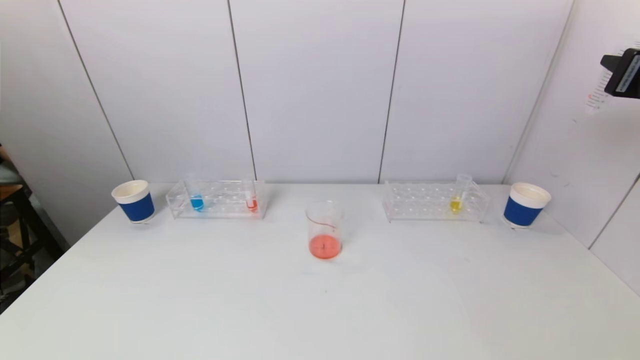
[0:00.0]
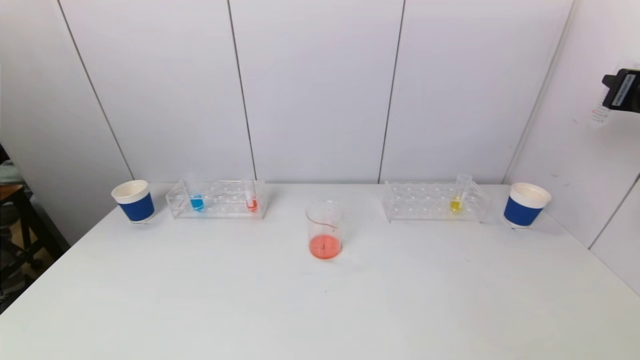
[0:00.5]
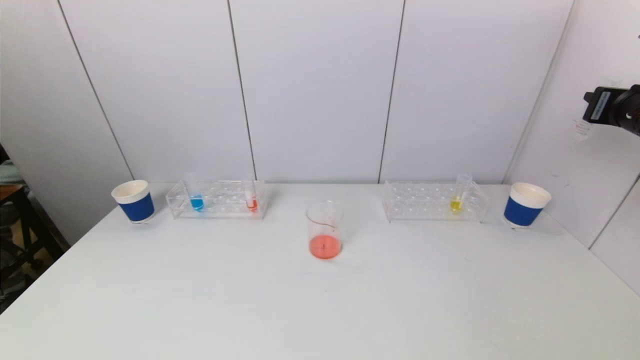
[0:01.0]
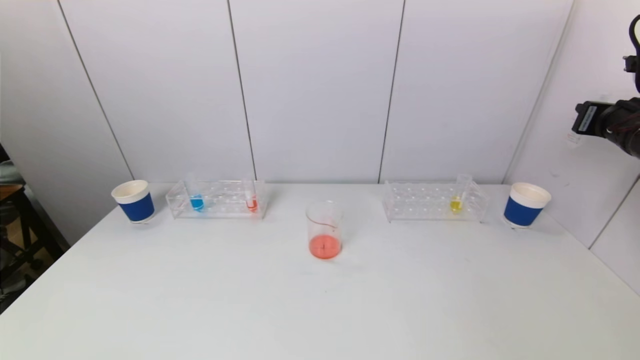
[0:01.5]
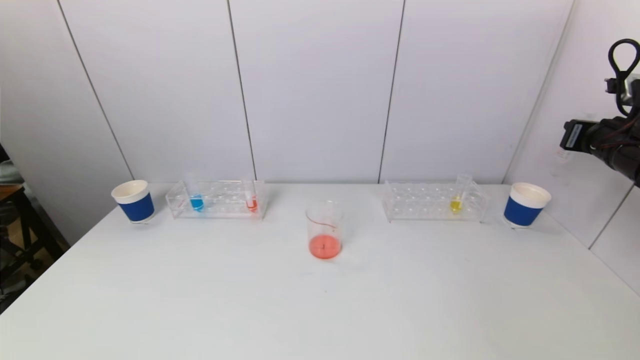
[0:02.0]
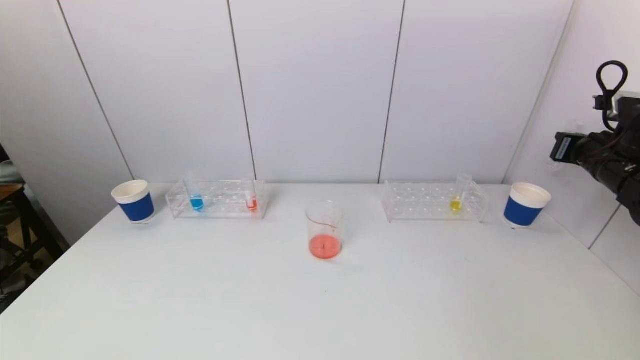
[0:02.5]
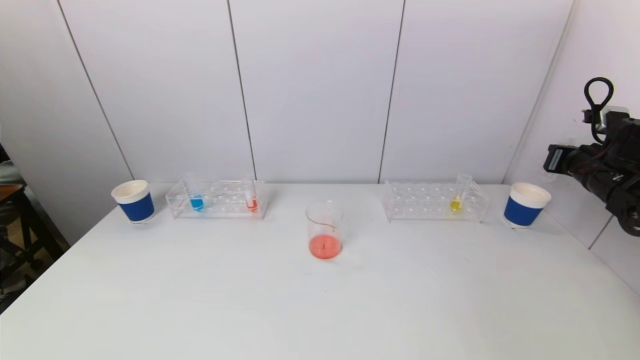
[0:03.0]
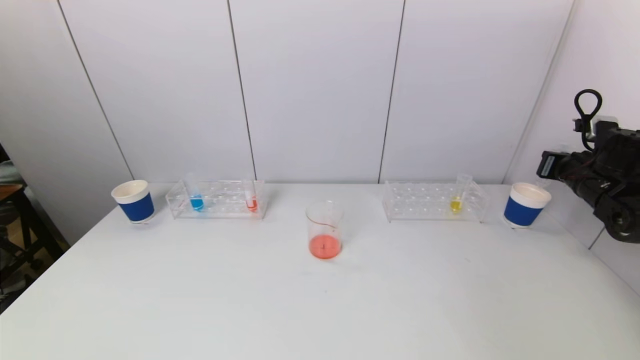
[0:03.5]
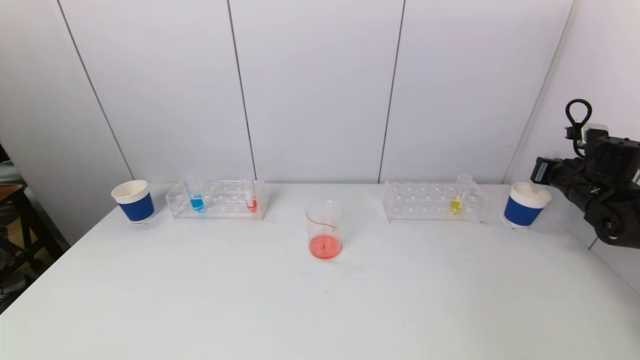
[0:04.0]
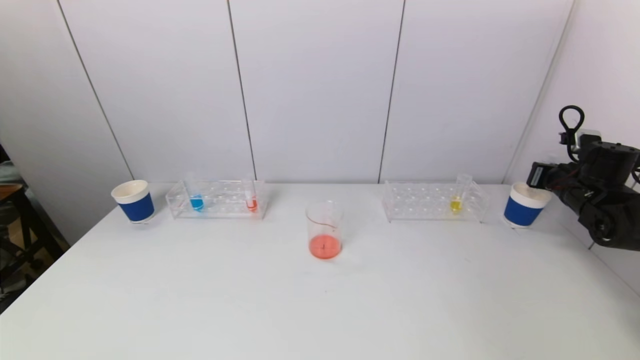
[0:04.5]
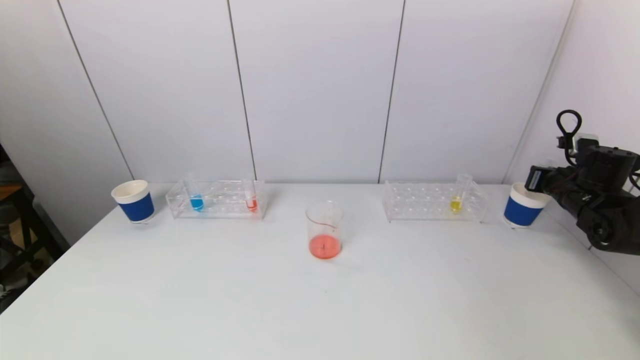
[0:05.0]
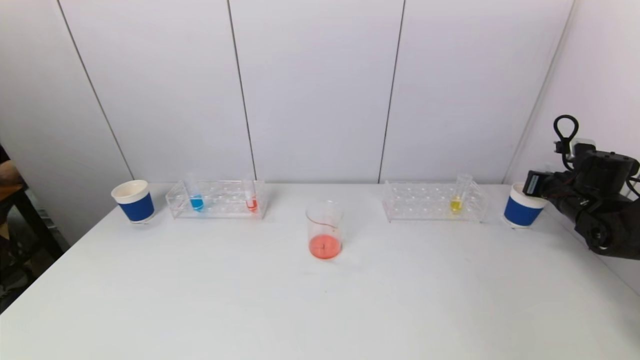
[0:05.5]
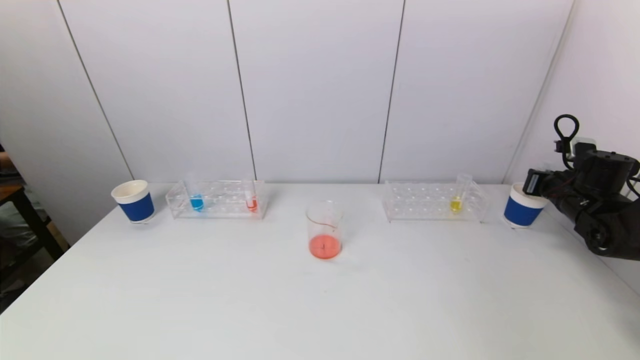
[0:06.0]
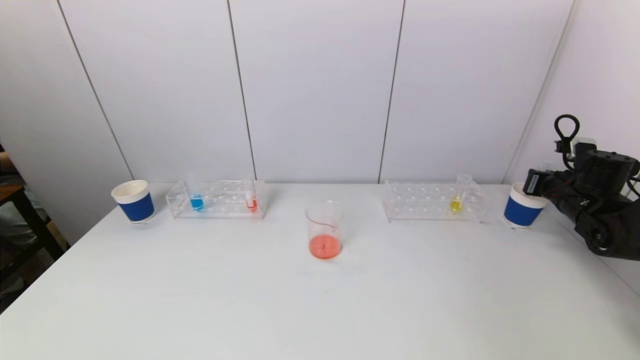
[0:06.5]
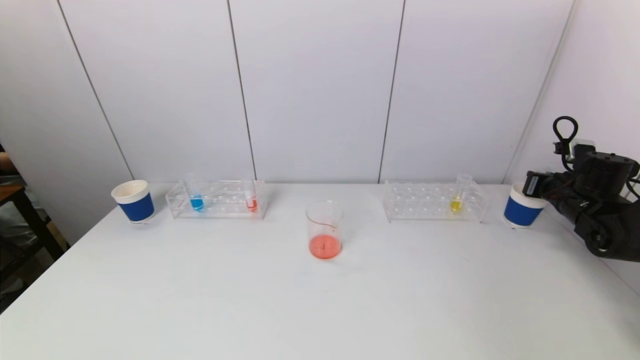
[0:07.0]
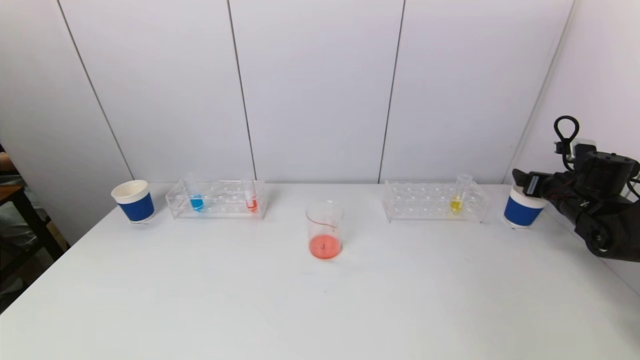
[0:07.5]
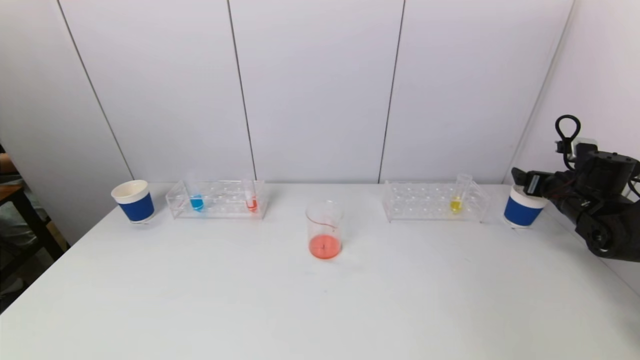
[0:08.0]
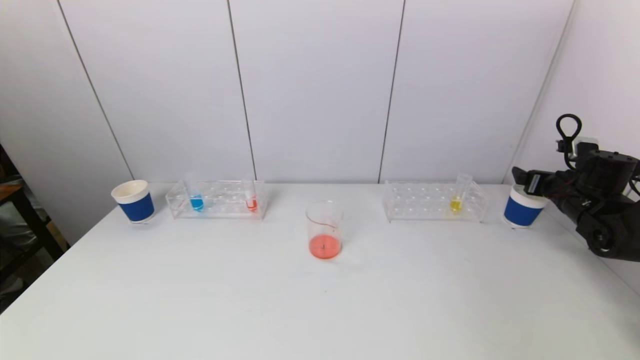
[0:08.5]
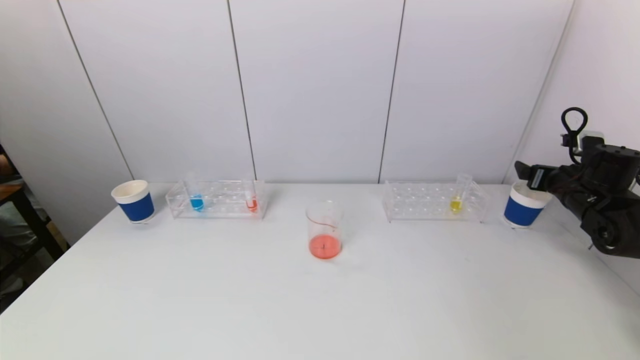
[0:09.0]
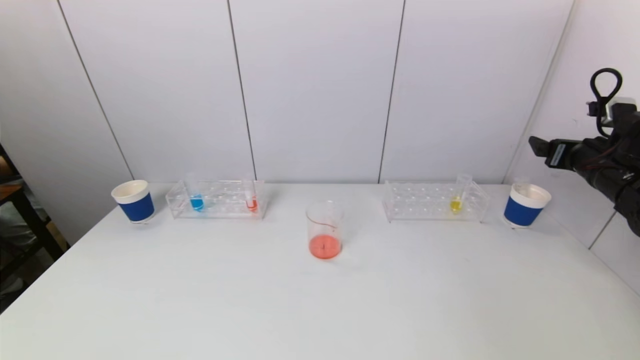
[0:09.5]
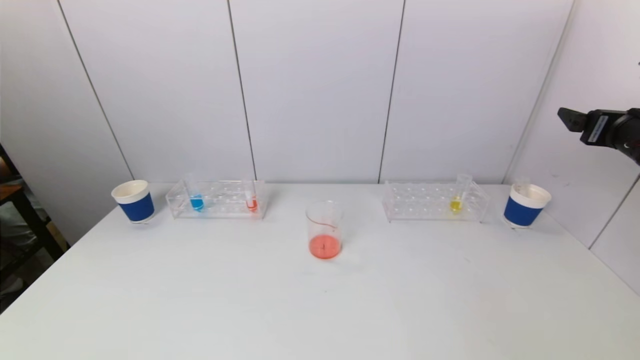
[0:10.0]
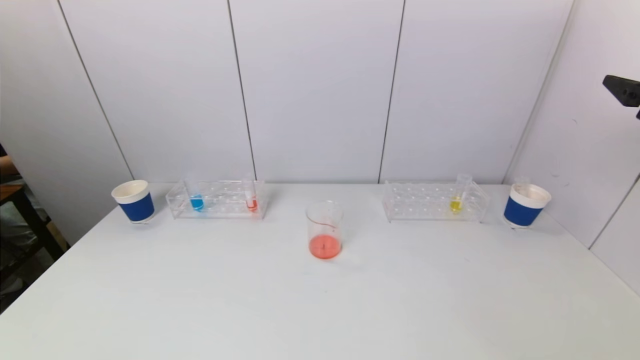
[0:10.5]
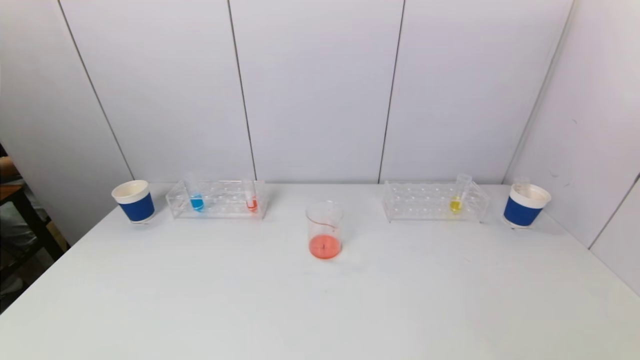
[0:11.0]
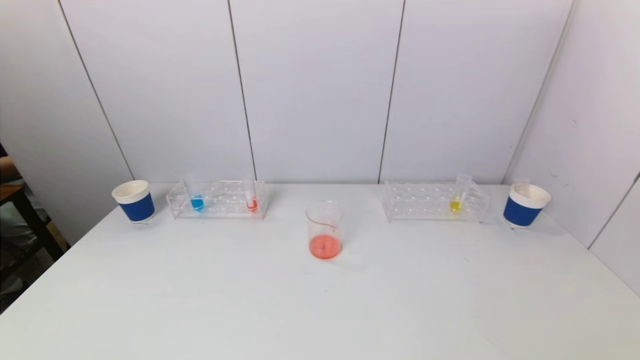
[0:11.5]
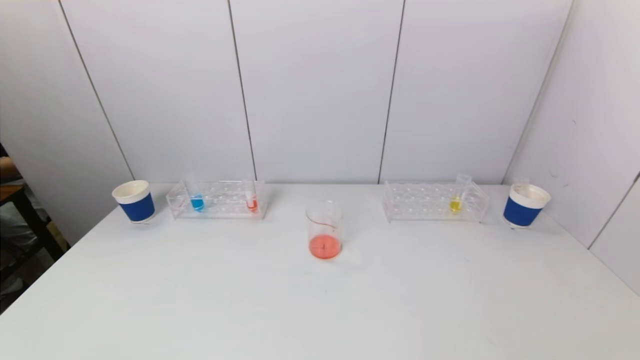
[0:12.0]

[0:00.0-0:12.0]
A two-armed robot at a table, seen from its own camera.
Task of the whole recording: pick up a test tube with pigment on left test tube rack and a test tube with pigment on right test tube rack by grippers and pour them into the beaker.
Step, 0:00.0 to 0:08.5: Place the test tube into the paper cup with the right gripper.
0:00.0 to 0:02.0: The right gripper shifts about 15 cm downward, forward and to the right.
0:02.0 to 0:04.0: The right gripper moves downward, roughly 10 cm.
0:04.0 to 0:06.0: The grippers move only a little.
0:08.0 to 0:10.0: The right gripper heads upward and backward, covering about 15 cm.
0:10.0 to 0:12.0: The right gripper heads backward, covering some 25 cm.

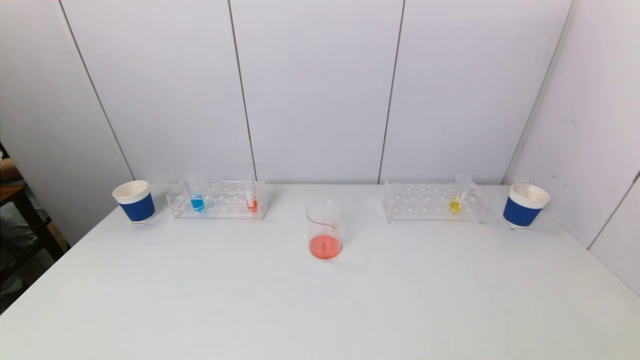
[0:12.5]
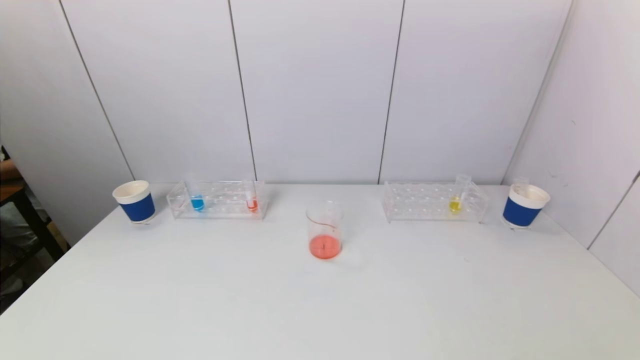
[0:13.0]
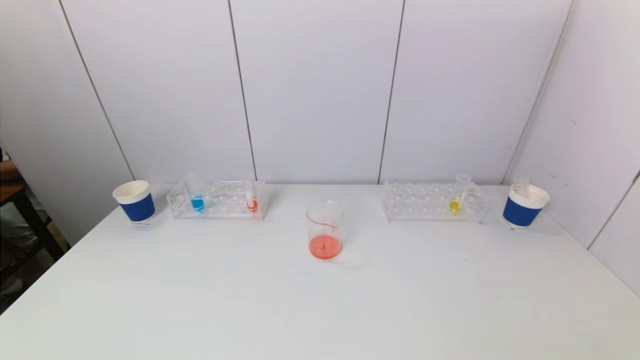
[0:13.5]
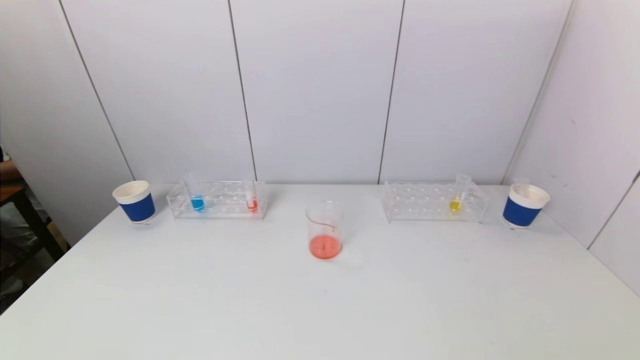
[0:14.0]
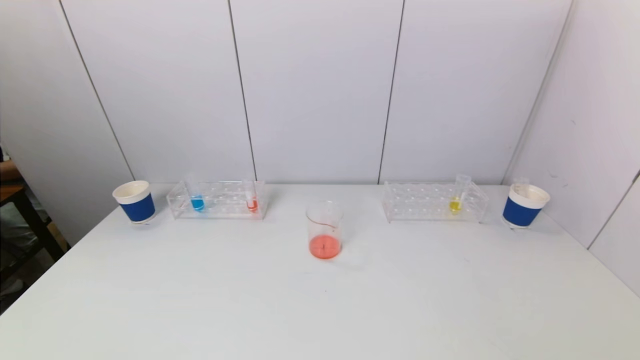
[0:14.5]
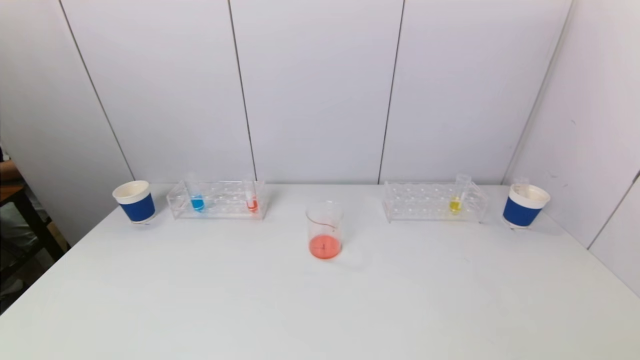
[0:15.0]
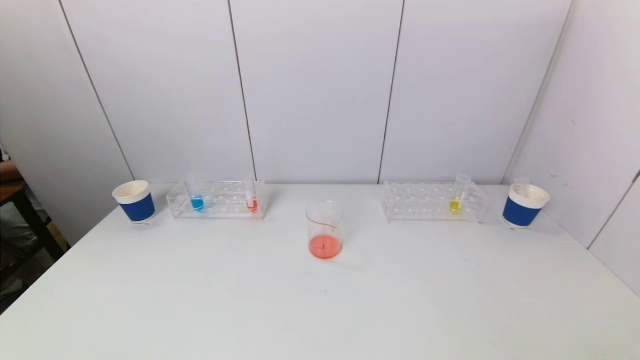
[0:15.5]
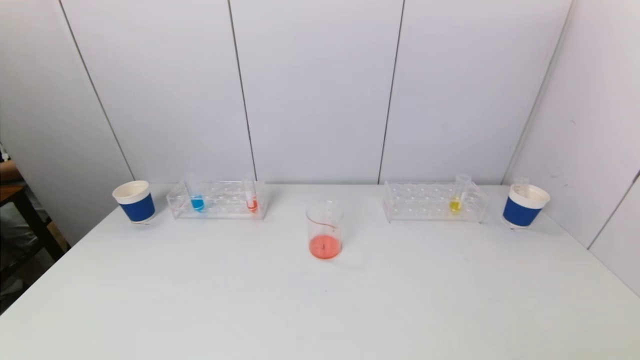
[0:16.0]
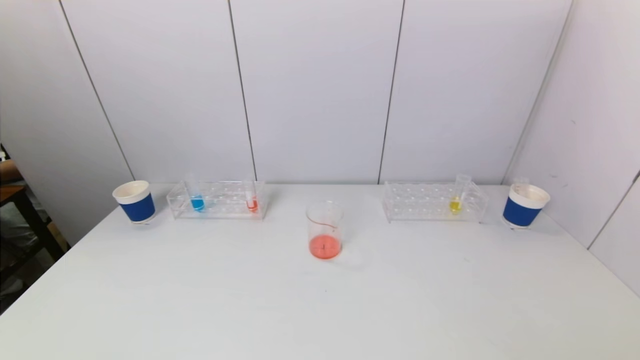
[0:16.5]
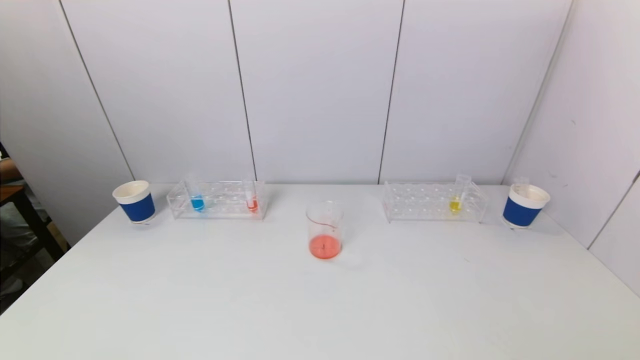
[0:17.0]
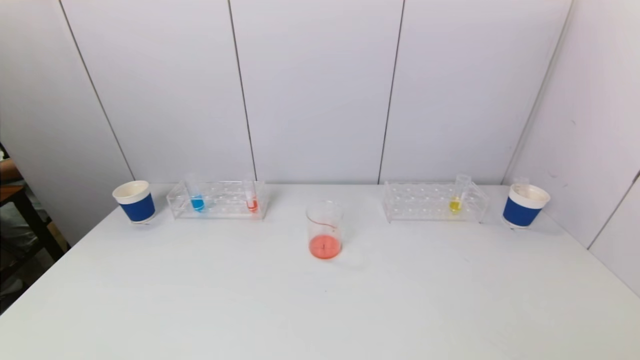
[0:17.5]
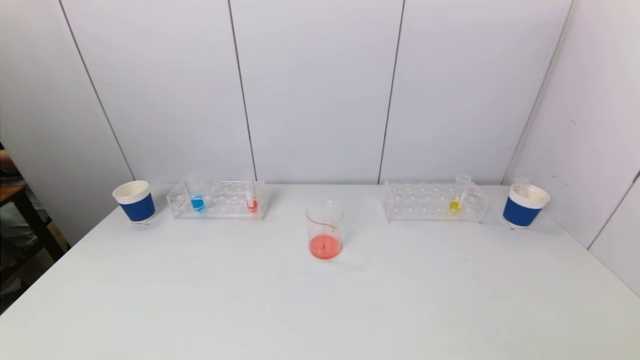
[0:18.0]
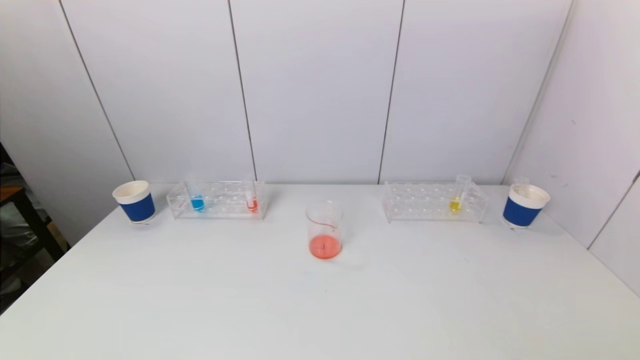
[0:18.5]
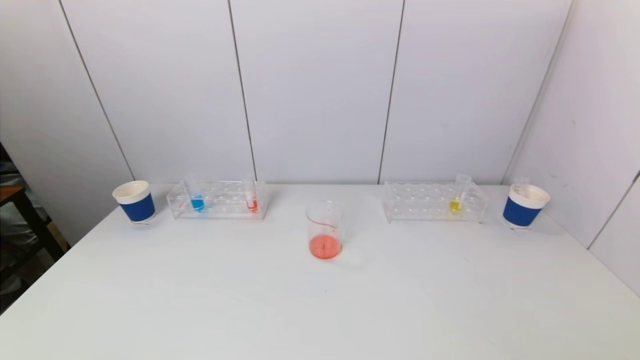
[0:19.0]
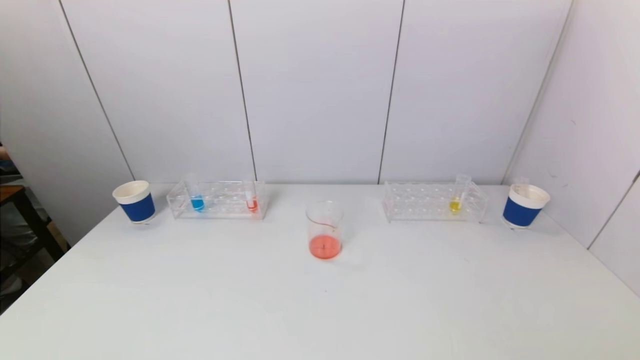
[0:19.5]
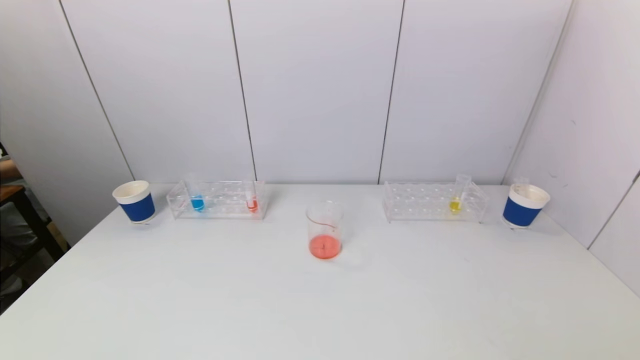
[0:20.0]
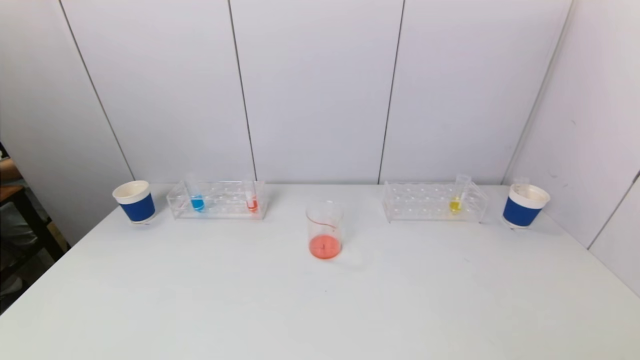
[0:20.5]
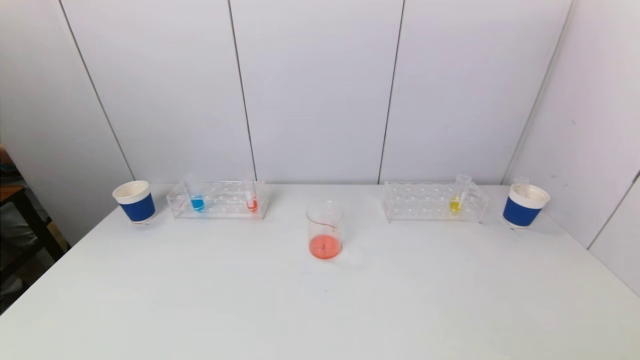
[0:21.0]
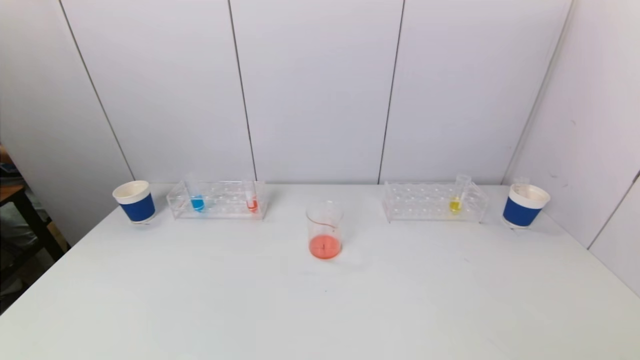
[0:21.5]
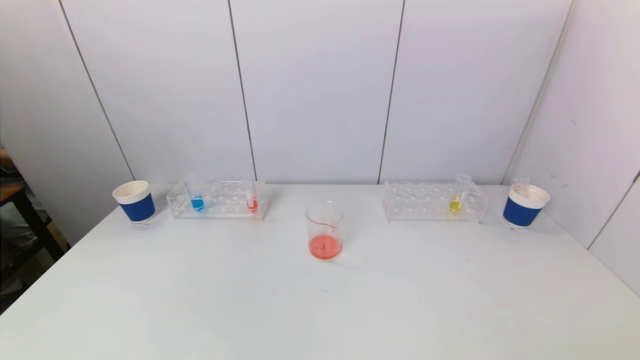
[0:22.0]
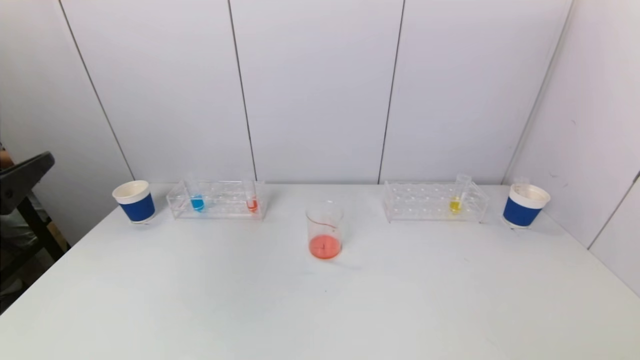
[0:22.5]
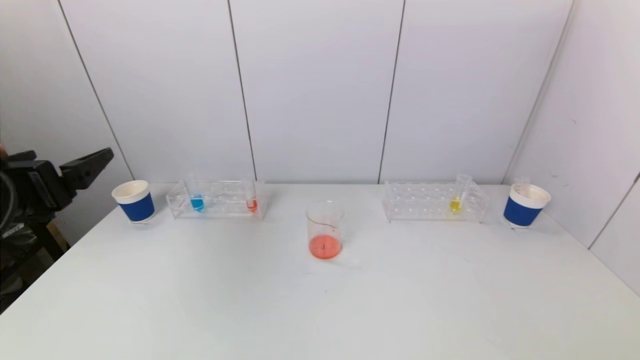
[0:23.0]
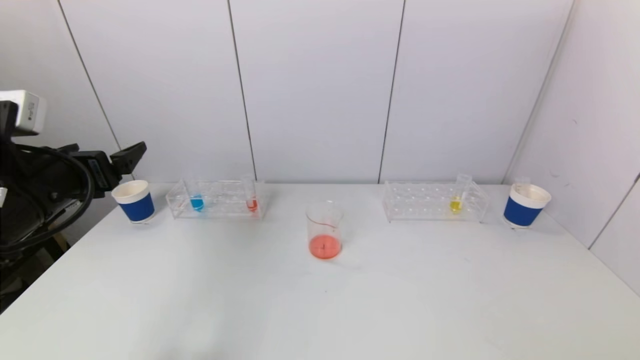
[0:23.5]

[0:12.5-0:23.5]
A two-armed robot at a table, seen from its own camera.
Task of the whole recording: pick up a test tube with pigment on left test tube rack and a test tube with pigment on right test tube rack by grippers and pour them into the beaker.
0:16.0 to 0:20.0: Neither gripper changes place.
0:21.5 to 0:23.5: The left gripper moves forward, roughly 25 cm.
